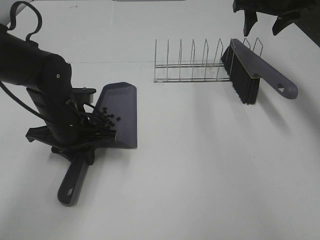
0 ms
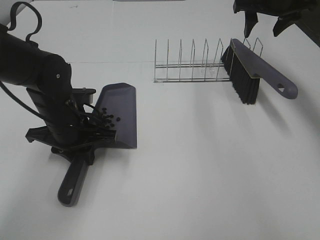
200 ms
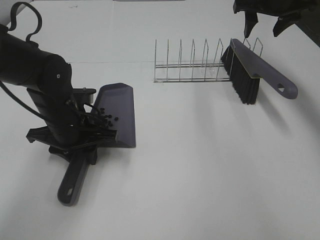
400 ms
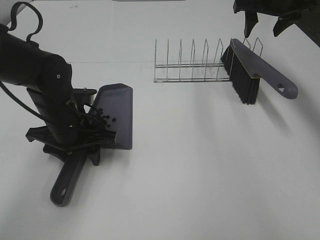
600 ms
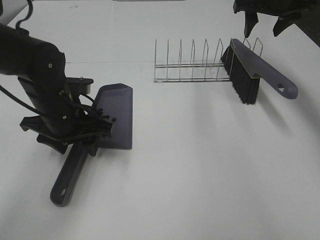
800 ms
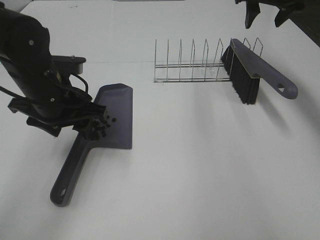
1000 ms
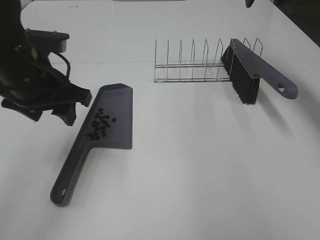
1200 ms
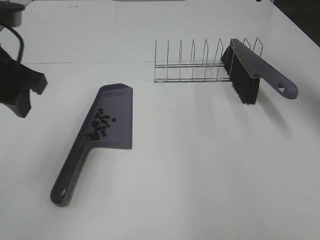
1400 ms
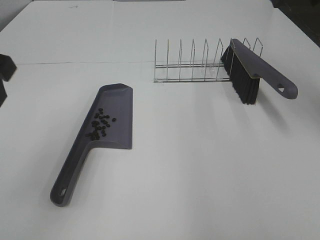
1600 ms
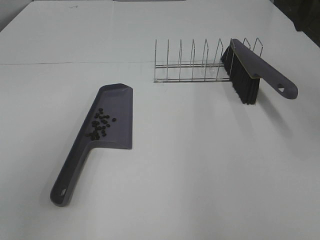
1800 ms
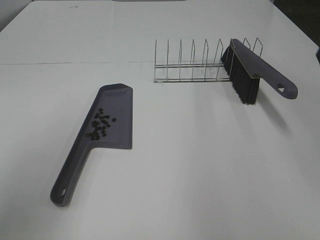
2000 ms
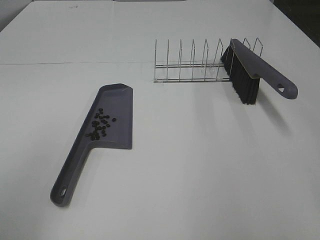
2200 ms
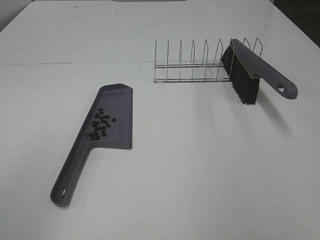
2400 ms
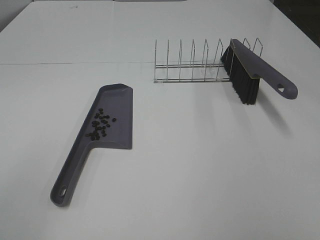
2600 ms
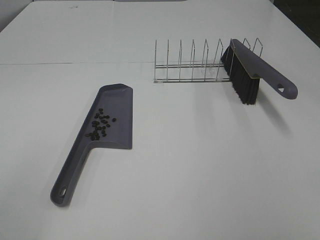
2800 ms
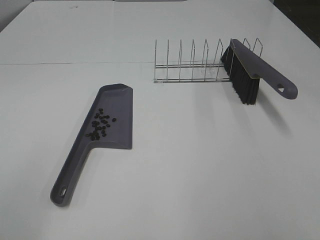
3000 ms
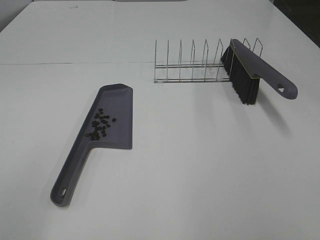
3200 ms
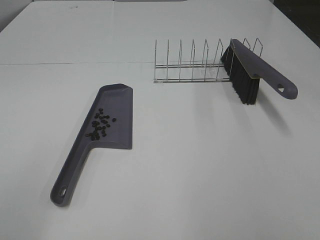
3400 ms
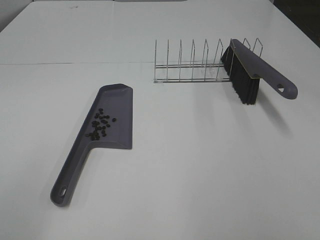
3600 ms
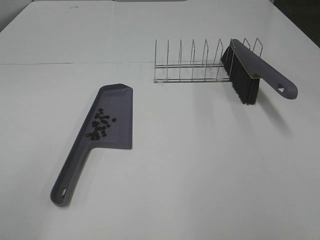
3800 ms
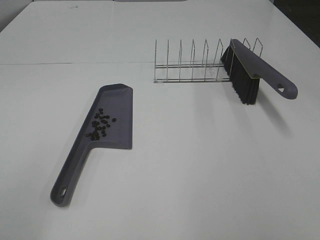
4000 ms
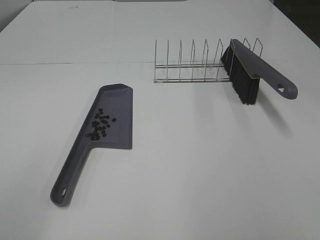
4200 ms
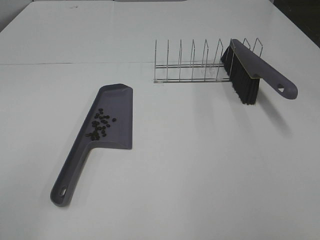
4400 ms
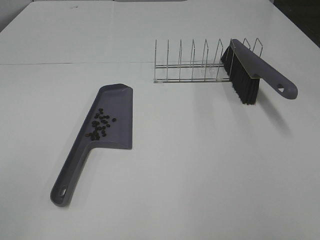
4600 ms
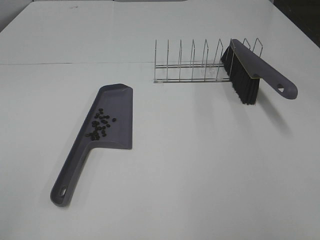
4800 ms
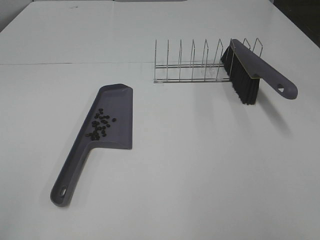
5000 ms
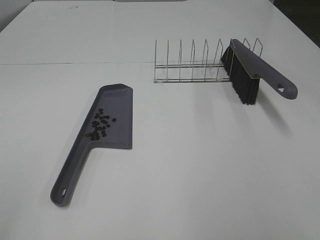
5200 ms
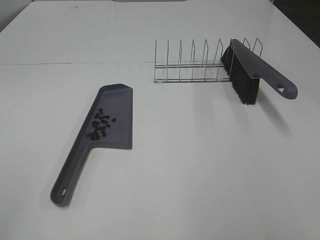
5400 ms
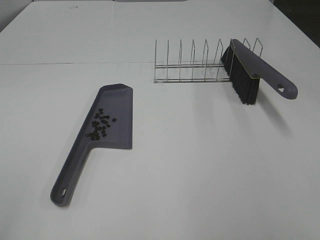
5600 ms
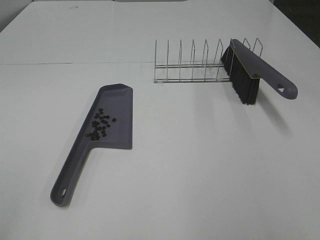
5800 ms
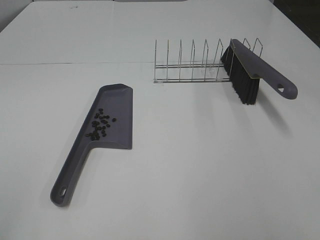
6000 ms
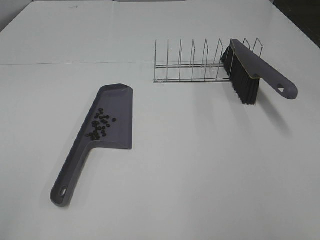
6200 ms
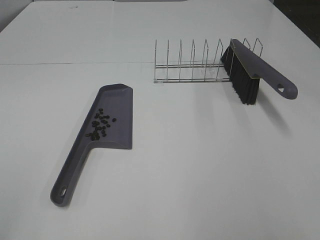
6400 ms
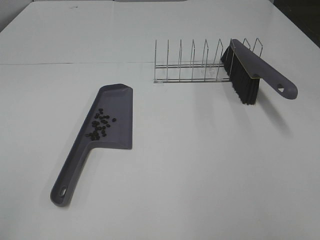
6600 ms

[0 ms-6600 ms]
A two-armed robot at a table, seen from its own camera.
Task of the whole recording: Sweep Coffee Bean.
0 ms to 1600 ms: The left gripper shifts about 25 cm upward and backward, and opens; the right gripper is displaced backward and upward by roughly 20 cm.
1600 ms to 3200 ms: The left gripper is displaced backward and to the left by approximately 20 cm.
5000 ms to 6600 ms: Both grippers stay put.
